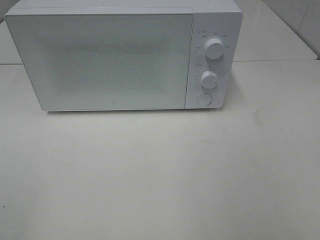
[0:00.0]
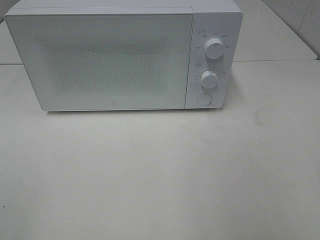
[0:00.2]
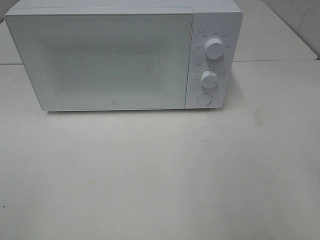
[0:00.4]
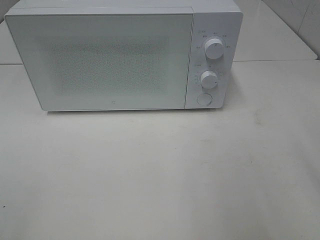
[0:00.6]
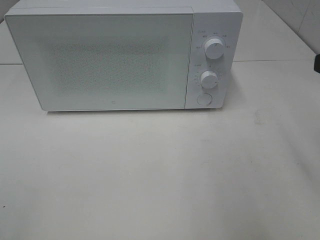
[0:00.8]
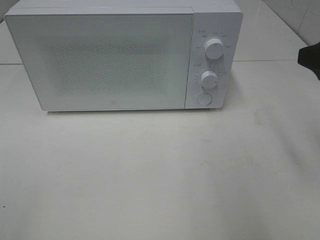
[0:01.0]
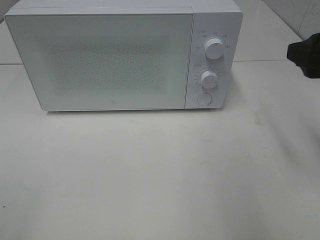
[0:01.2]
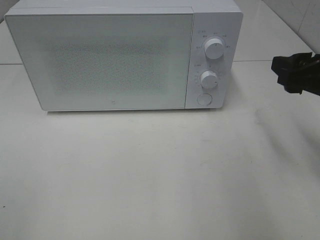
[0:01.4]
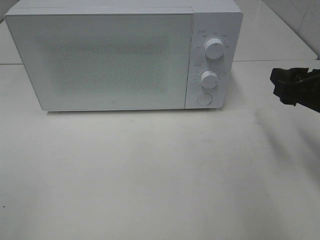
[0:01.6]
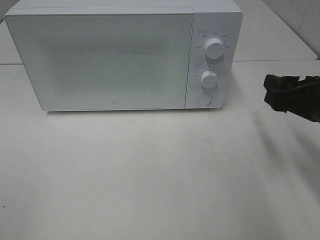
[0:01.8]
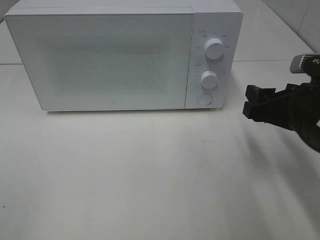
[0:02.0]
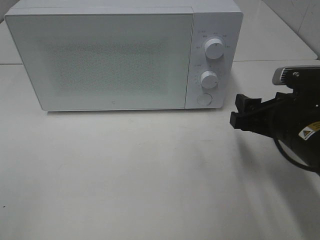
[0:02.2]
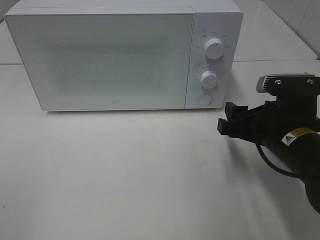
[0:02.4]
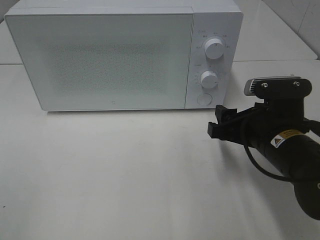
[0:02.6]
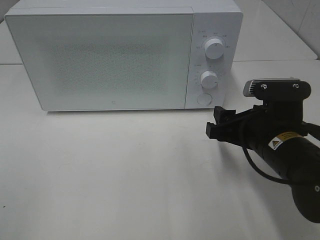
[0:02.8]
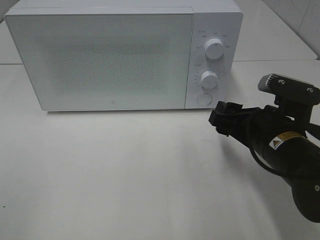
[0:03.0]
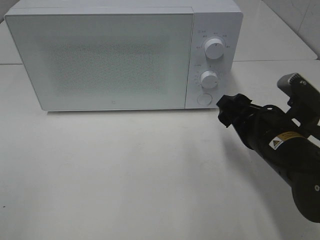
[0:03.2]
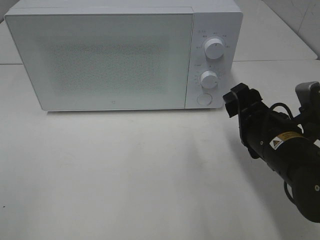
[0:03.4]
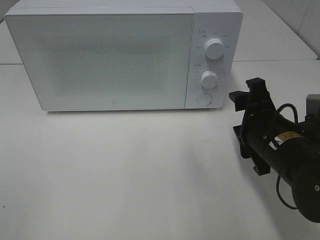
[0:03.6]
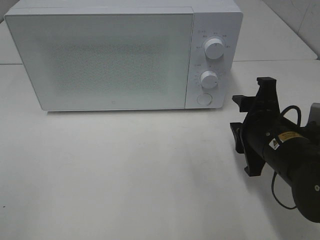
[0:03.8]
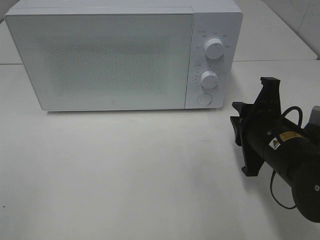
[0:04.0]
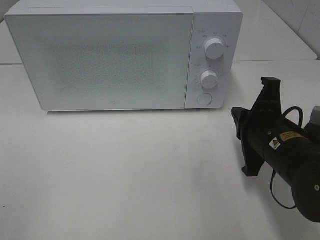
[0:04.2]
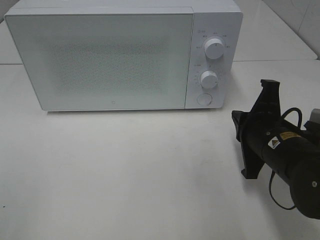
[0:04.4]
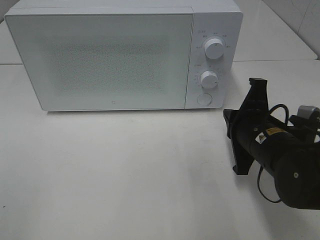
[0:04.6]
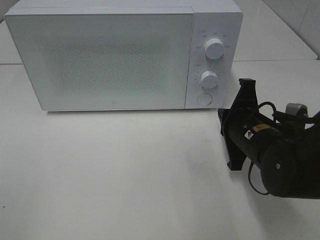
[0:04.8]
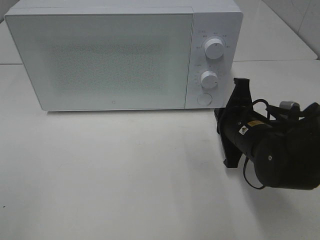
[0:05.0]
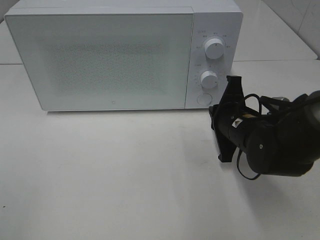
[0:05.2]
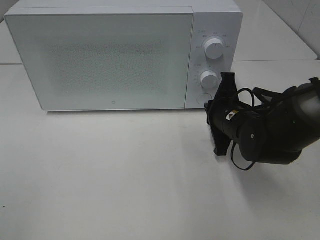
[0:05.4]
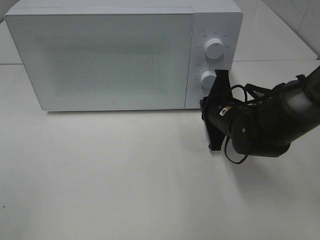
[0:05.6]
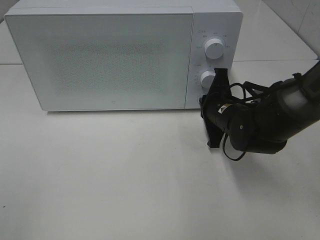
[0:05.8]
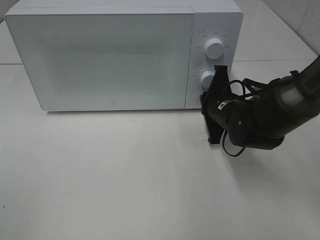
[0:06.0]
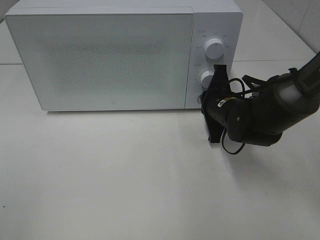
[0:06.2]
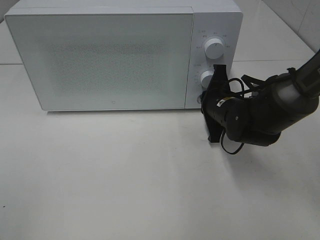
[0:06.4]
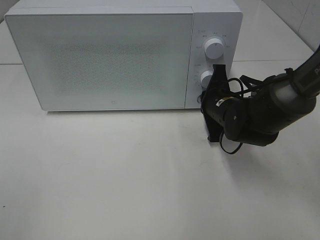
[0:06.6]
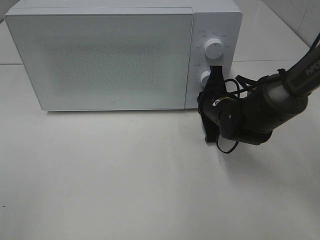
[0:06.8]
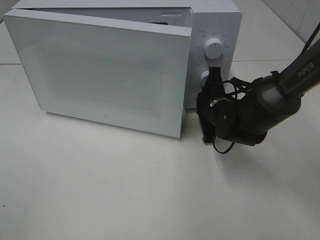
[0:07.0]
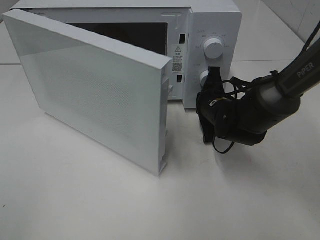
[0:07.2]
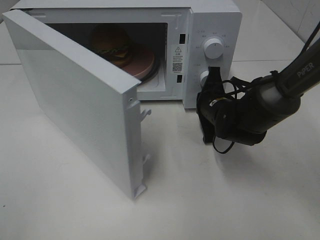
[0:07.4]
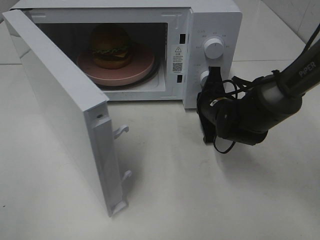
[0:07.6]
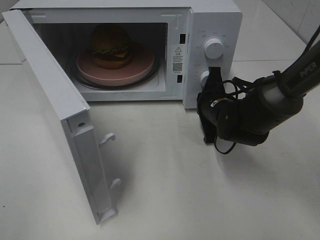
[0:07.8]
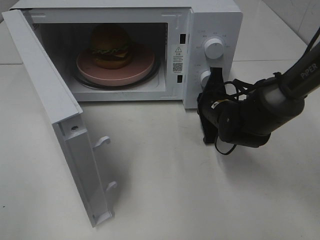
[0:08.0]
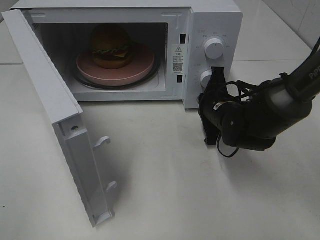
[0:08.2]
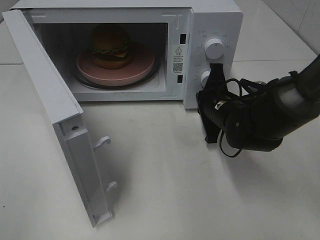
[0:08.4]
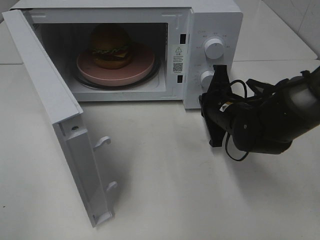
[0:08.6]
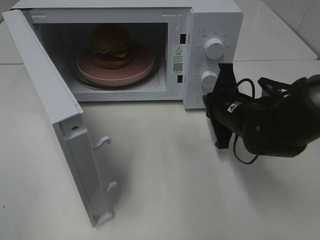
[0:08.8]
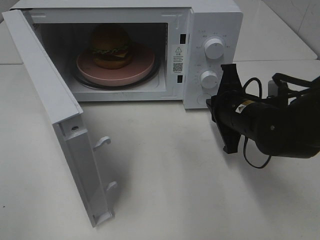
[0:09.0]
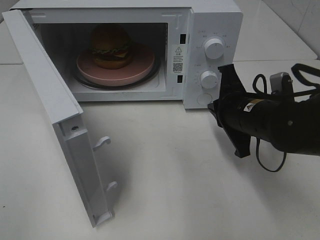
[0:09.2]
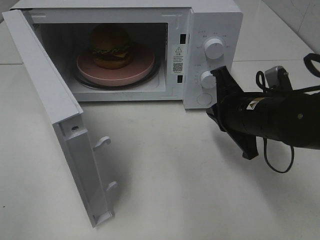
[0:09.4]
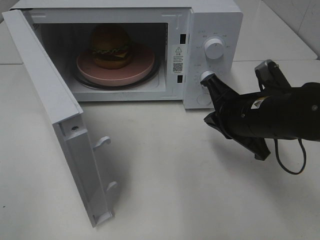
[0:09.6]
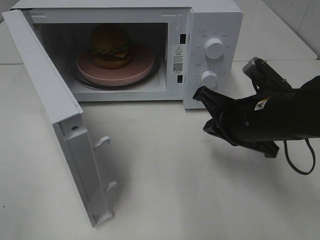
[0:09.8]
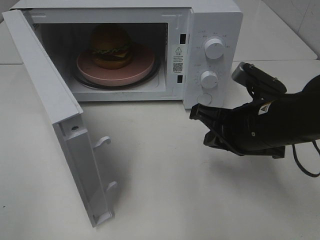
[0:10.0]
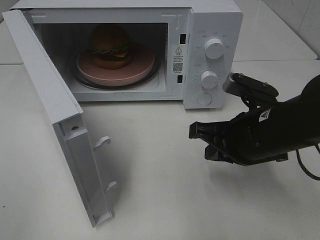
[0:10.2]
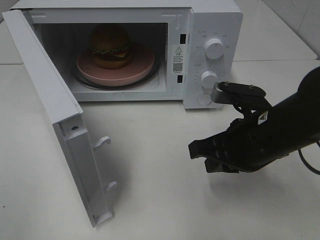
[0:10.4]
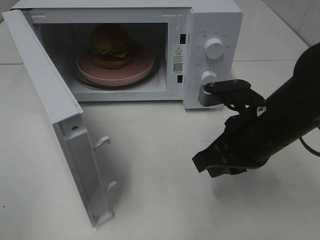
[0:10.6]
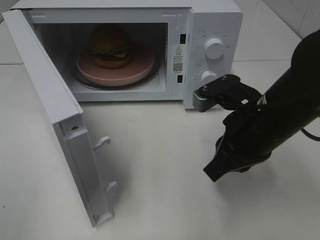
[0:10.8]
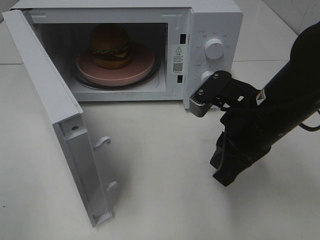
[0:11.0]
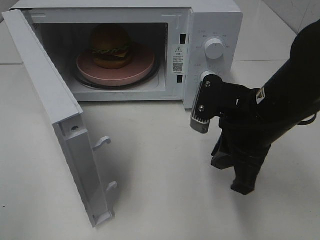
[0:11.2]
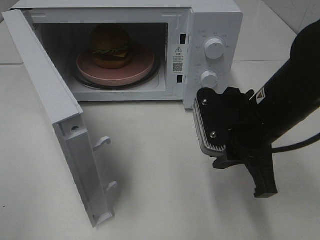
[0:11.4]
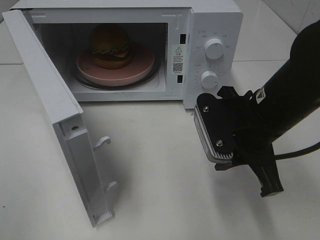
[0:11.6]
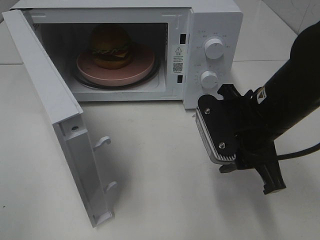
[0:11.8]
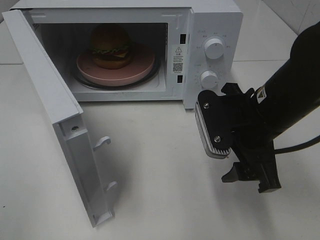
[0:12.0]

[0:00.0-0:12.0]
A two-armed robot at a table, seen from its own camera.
Task of the whole recording: Heat the burger.
Step, 0:00.0 to 0:08.6: Right hand: press the switch.
0:00.0 to 0:01.6: The right gripper travels forward and downward by about 20 cm.
0:01.6 to 0:03.0: The right gripper heads to the left and downward, covering roughly 10 cm.
0:03.0 to 0:04.4: The right gripper closes up.
0:04.4 to 0:06.0: The right gripper heads forward, covering roughly 10 cm.
0:07.6 to 0:09.0: The right gripper heads backward, covering roughly 5 cm.
0:09.0 to 0:10.4: The right gripper goes about 5 cm backward.
0:10.4 to 0:12.0: The right gripper opens up.

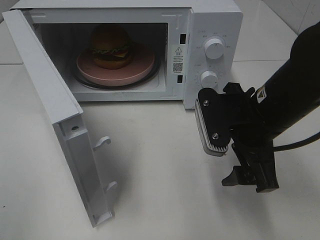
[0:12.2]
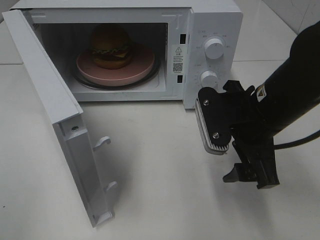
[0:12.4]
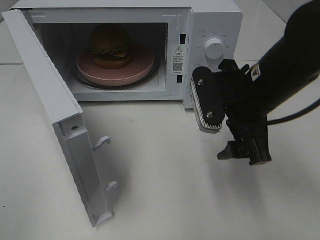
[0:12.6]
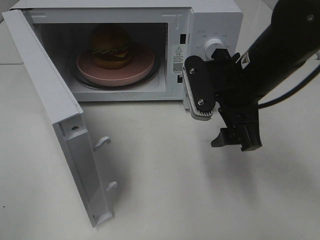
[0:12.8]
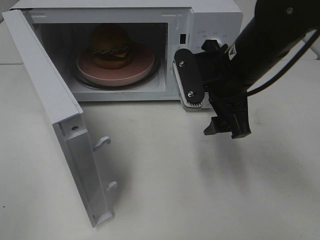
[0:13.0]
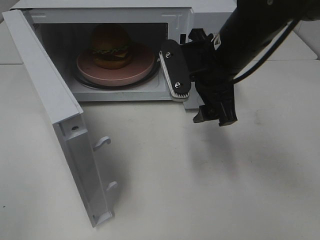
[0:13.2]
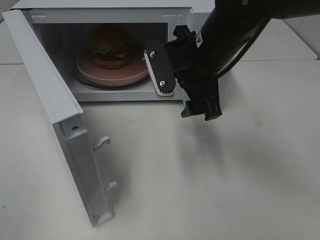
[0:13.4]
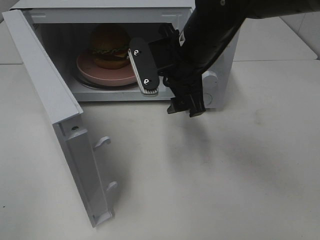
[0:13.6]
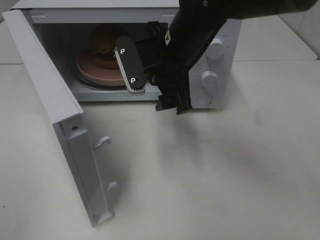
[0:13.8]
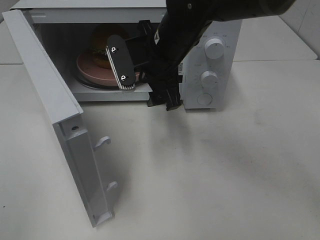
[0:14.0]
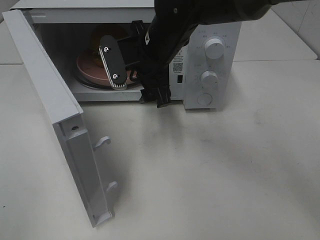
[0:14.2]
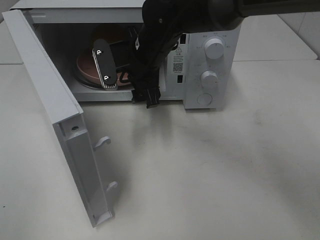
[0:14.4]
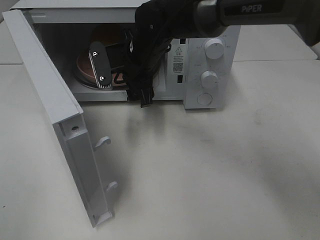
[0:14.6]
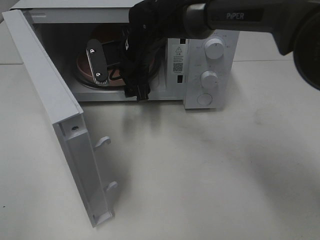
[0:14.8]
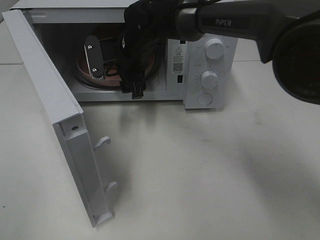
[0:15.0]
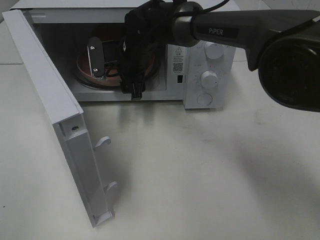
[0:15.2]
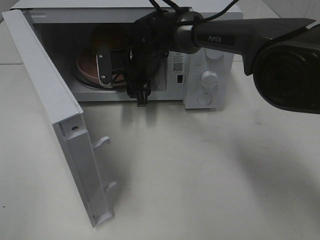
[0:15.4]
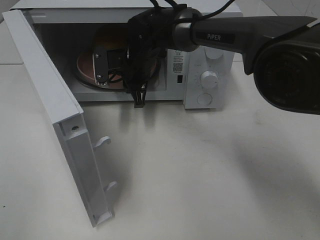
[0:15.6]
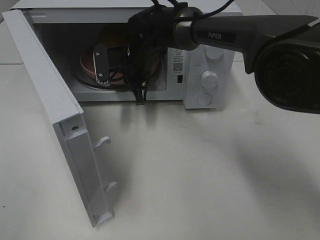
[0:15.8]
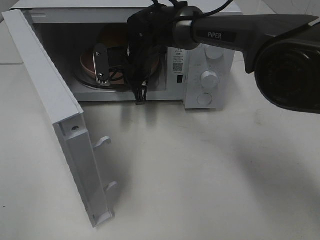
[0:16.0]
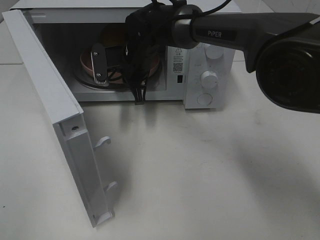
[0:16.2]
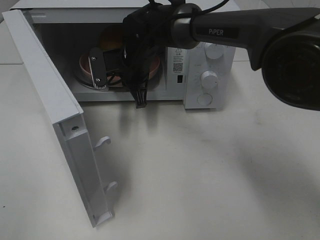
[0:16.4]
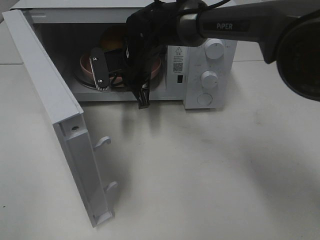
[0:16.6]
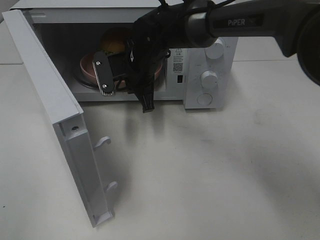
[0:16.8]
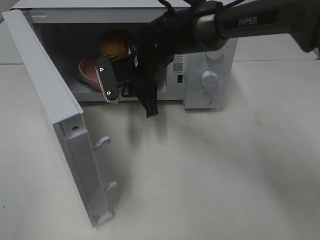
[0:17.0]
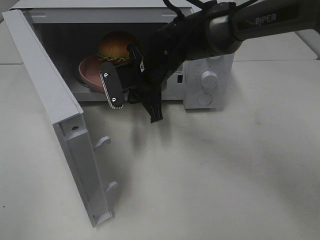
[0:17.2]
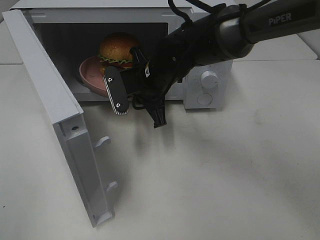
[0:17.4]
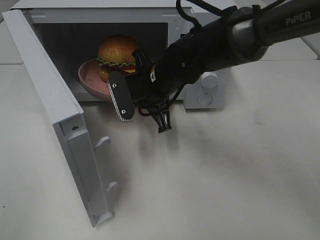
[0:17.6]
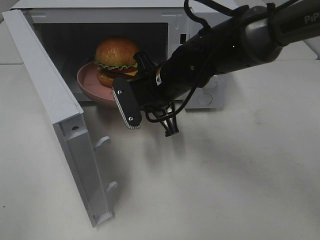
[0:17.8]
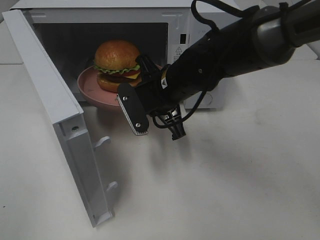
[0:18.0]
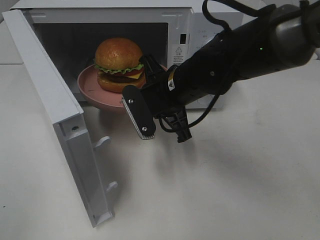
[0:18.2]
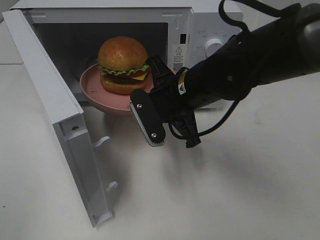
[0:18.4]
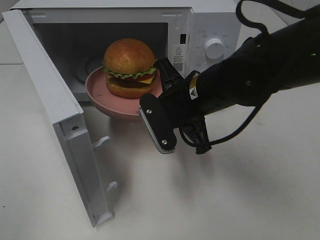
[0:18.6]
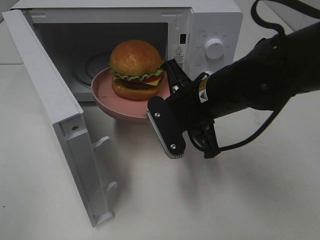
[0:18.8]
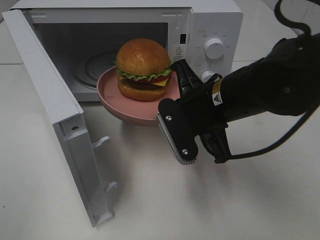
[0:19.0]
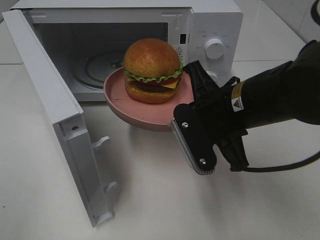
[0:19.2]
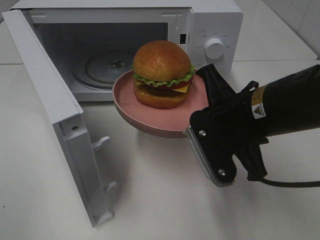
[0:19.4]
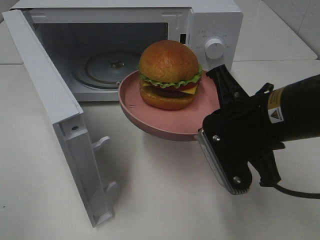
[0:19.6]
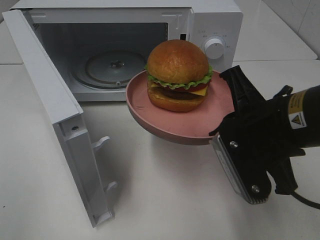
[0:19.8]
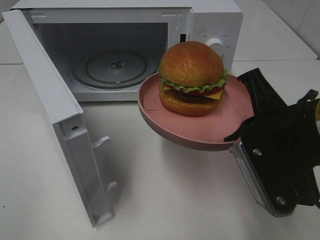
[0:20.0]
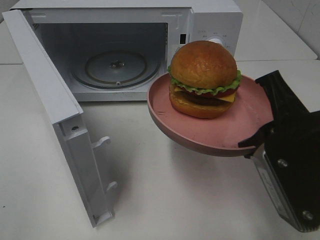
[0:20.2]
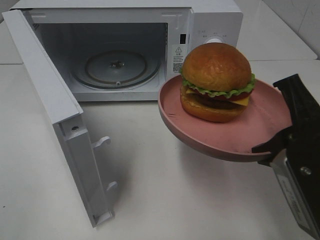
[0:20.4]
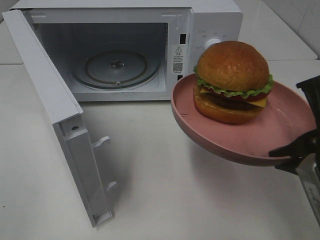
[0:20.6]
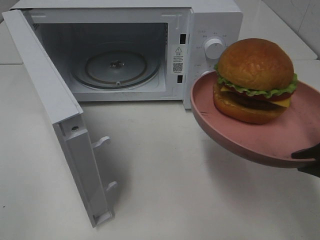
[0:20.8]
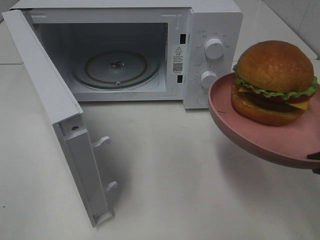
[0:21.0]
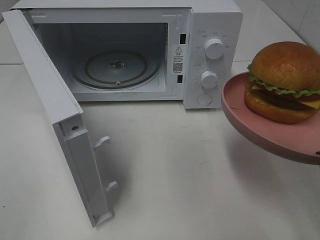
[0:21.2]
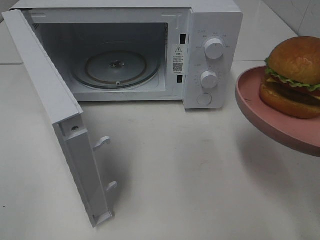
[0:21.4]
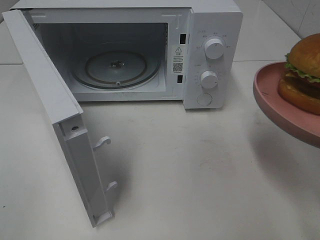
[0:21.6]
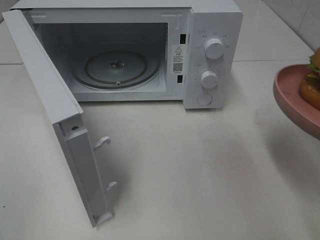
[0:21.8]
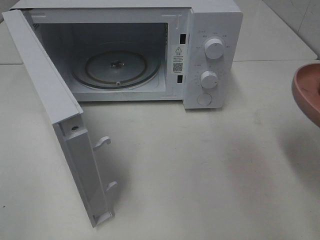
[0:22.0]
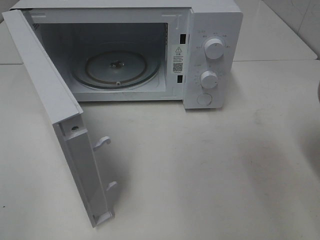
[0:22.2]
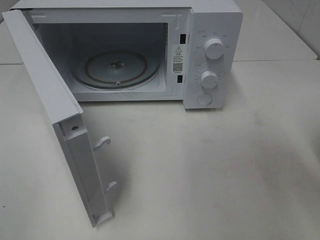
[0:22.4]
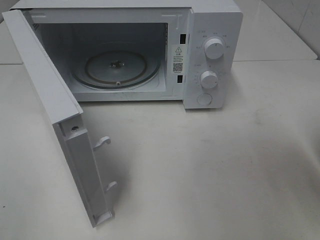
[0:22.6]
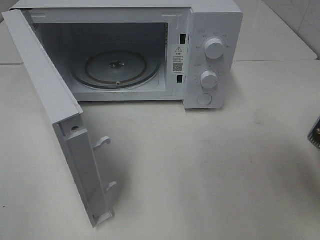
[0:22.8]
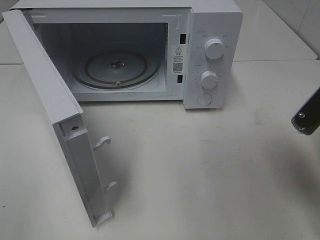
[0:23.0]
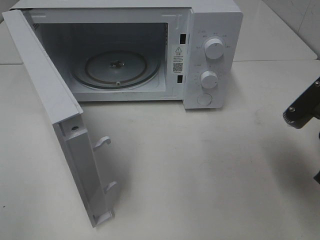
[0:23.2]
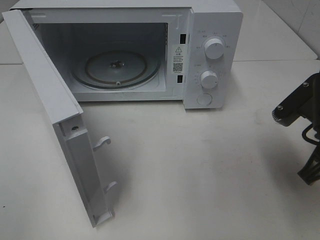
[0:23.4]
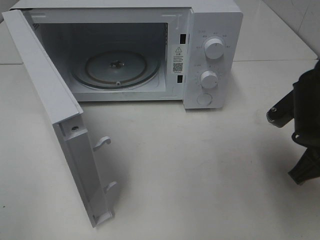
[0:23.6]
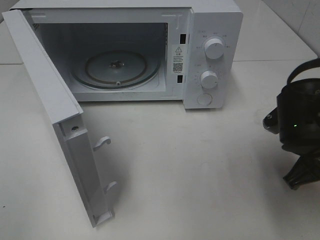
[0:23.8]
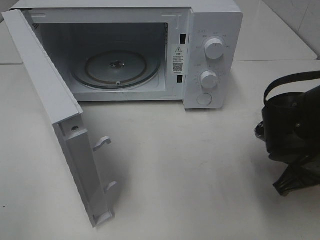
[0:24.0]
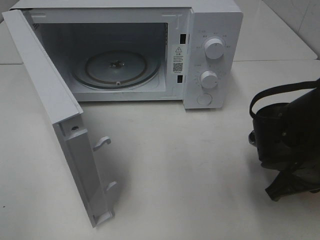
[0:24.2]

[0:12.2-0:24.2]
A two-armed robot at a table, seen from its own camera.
Task of the whole recording: Heat the burger.
Step, 0:12.2 to 0:16.0: Right hand: grab the plate with the hamburger.
0:12.2 to 0:13.8: The right gripper moves to the left and forward, approximately 15 cm.
0:13.8 to 0:15.2: The right gripper shifts roughly 15 cm forward, downward and to the left.
0:15.2 to 0:16.6: The right gripper closes its fingers.
0:16.6 to 0:18.2: The right gripper goes some 15 cm backward and to the right.
0:18.2 to 0:19.8: The right gripper travels backward, to the right and upward by about 15 cm.
0:19.8 to 0:21.2: The right gripper goes approximately 10 cm to the right and backward.
0:22.6 to 0:24.2: The right gripper travels downward, forward and to the left by about 15 cm.
